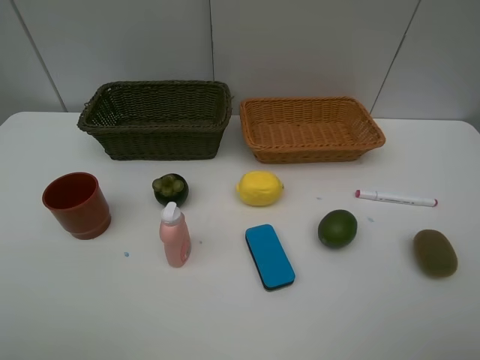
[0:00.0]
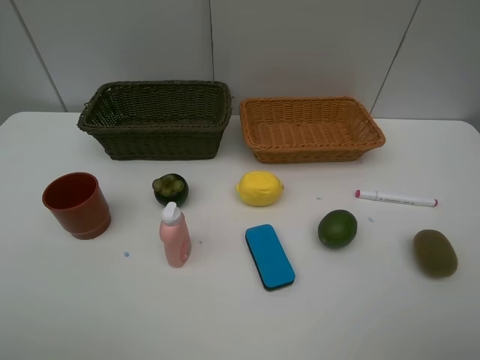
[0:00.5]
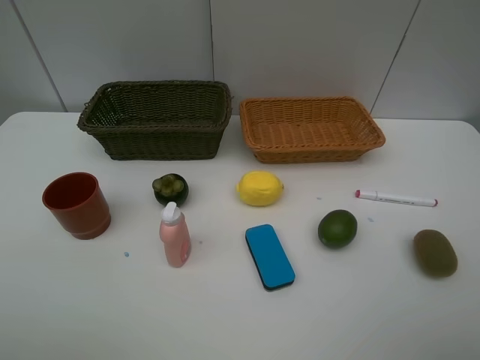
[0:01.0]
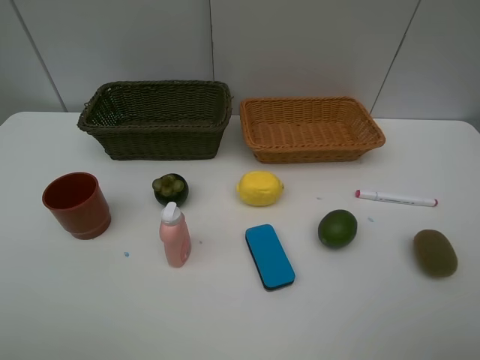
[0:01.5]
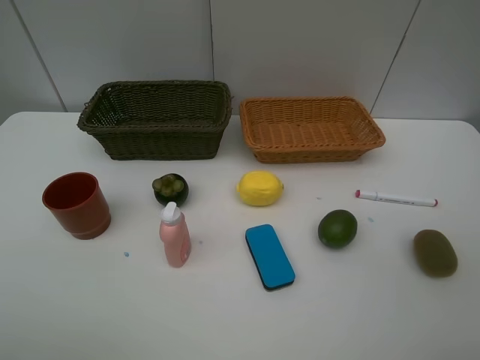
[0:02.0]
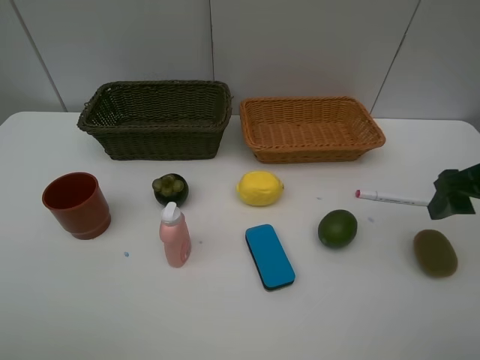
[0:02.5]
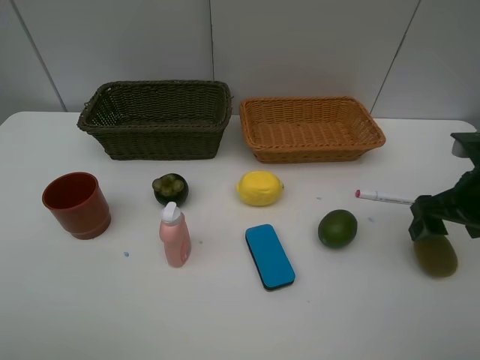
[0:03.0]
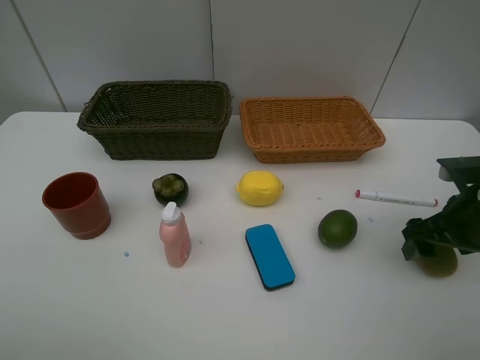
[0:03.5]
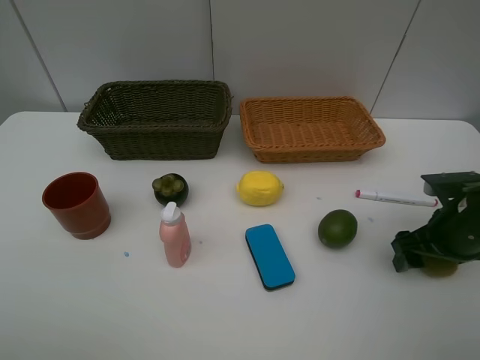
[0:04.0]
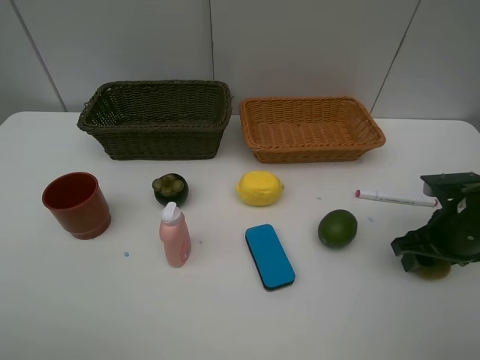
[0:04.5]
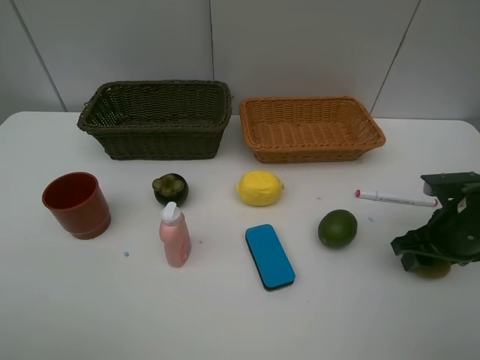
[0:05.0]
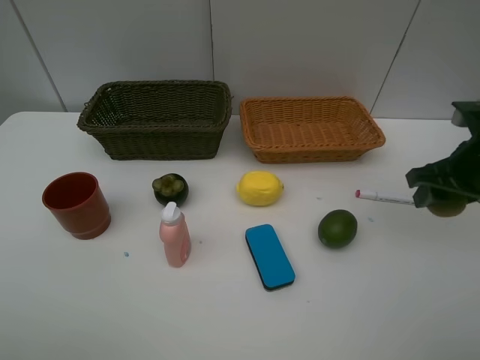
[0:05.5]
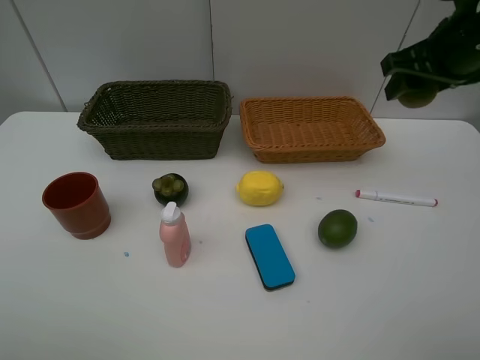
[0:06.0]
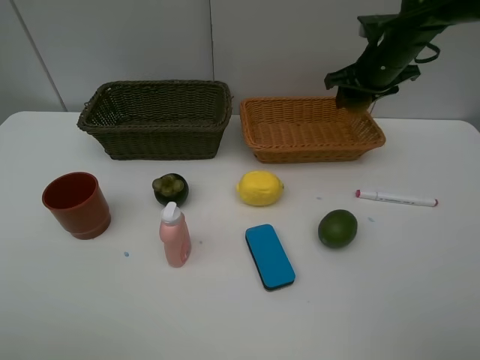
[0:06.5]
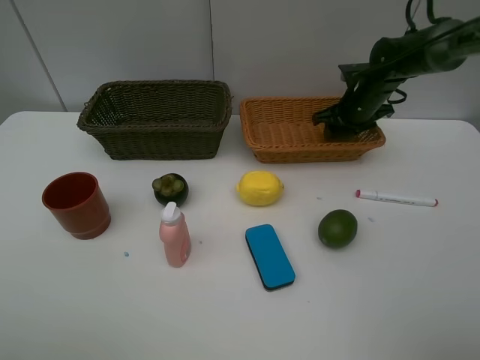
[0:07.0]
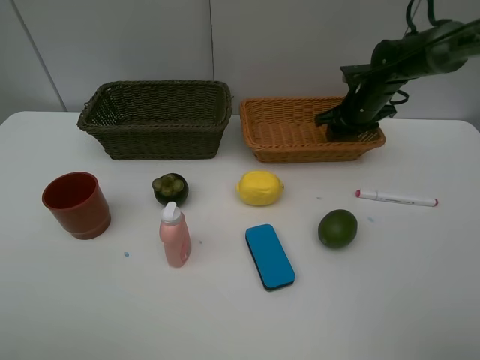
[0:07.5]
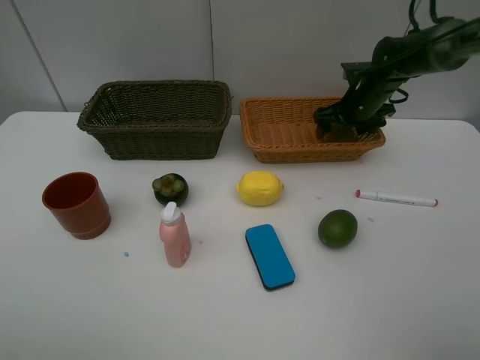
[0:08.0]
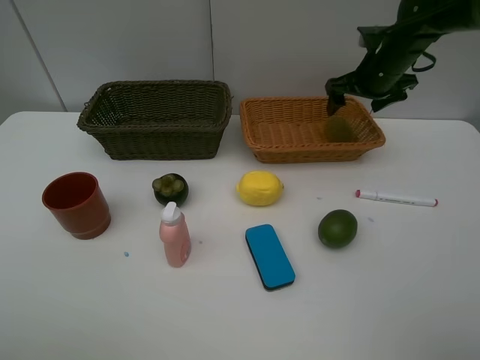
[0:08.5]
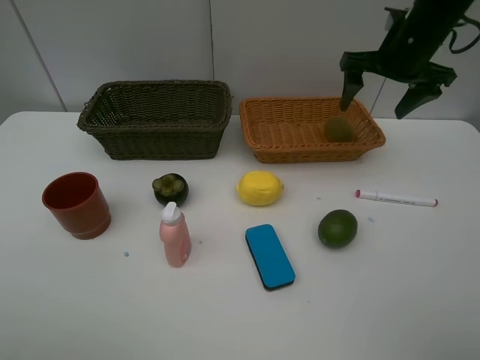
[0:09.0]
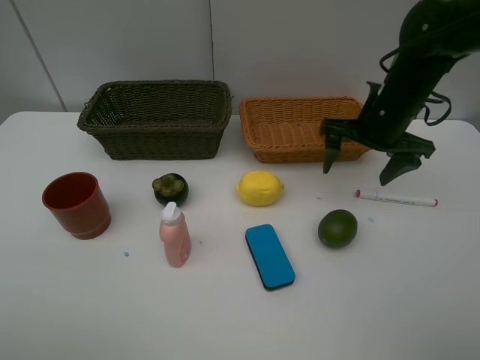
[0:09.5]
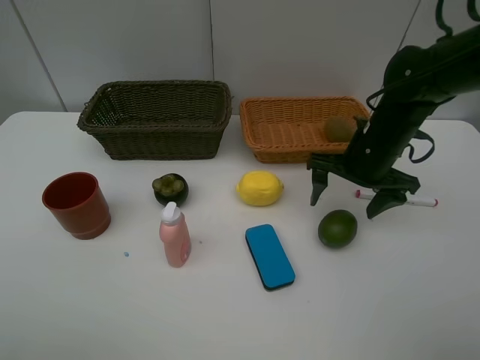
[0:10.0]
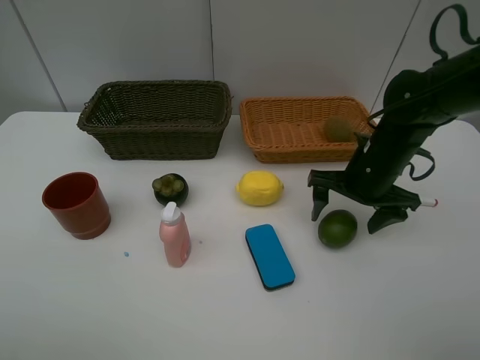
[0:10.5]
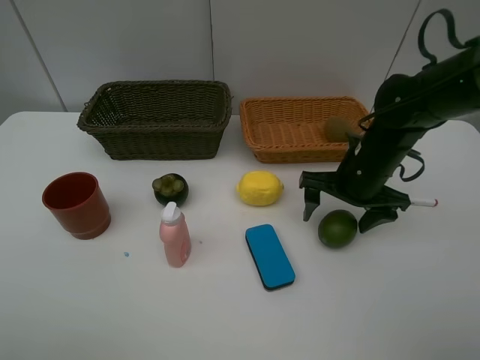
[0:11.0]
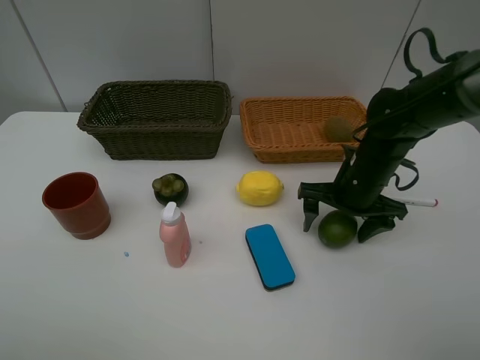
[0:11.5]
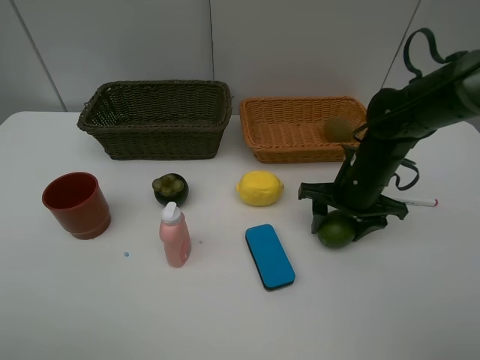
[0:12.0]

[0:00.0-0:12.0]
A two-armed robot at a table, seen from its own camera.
Task of the whole recording: Place multiple objects separately in different baskets.
Step, 0:00.0 to 0:05.0: Pick up kiwi with right gripper.
Step, 0:05.5 to 0:08.0: Place the kiwi in the light basket with right gripper.
0:02.0 to 0:04.0: The right gripper shifts roughly 20 cm downward and forward.
0:04.0 to 0:06.0: The right gripper heads upward and forward, covering roughly 20 cm, and closes up.
0:06.0 to 0:08.0: The right gripper moves downward and forward, some 20 cm, and opens its fingers.
0:08.0 to 0:10.0: The right gripper moves backward, about 15 cm.
0:10.0 to 0:12.0: The grippers move only a little.

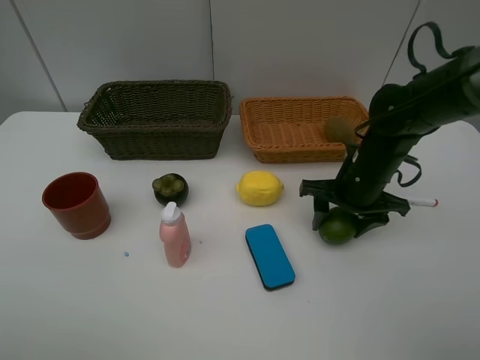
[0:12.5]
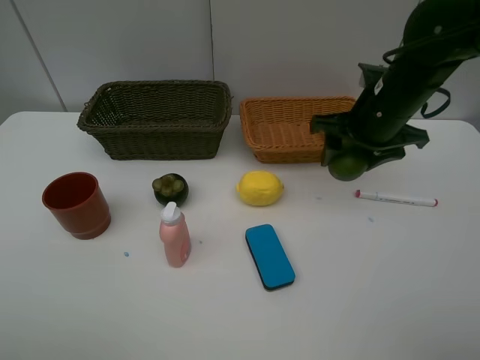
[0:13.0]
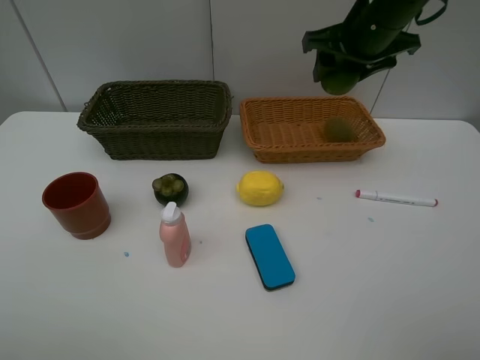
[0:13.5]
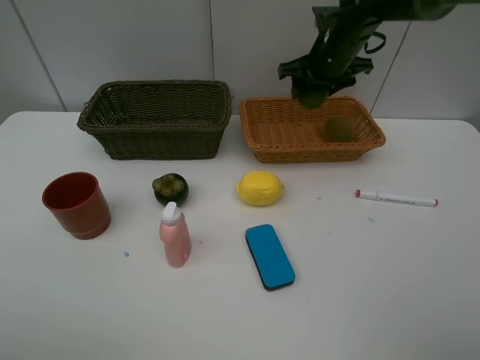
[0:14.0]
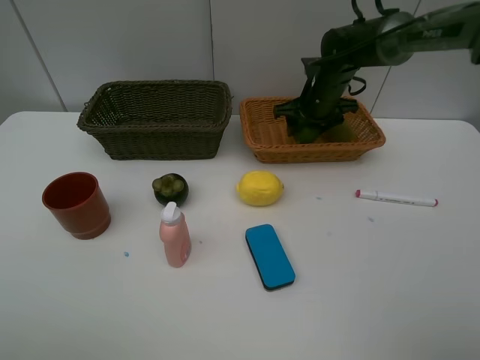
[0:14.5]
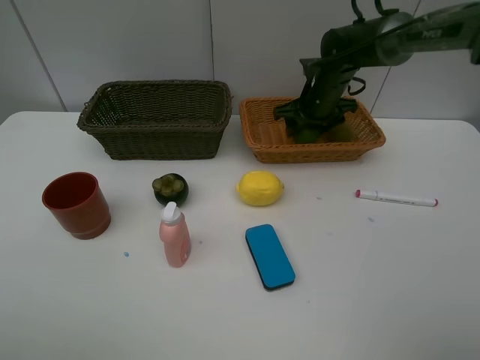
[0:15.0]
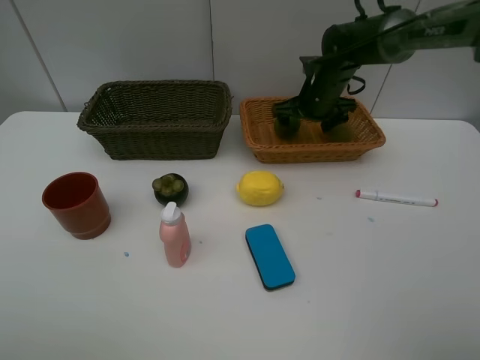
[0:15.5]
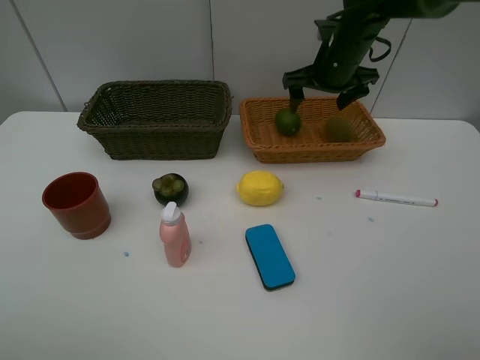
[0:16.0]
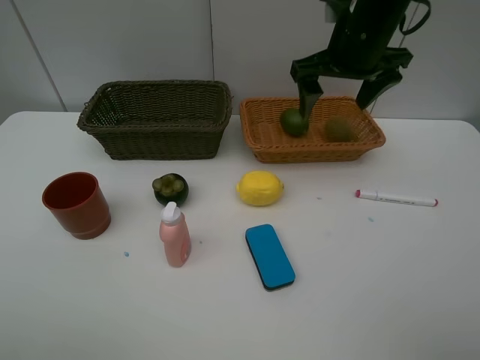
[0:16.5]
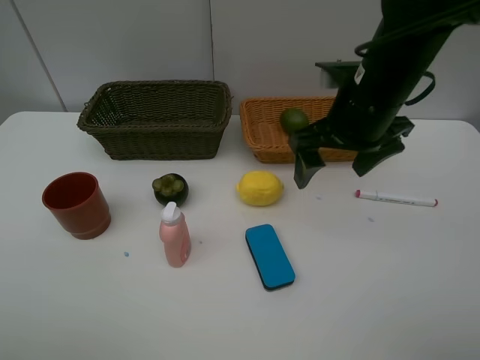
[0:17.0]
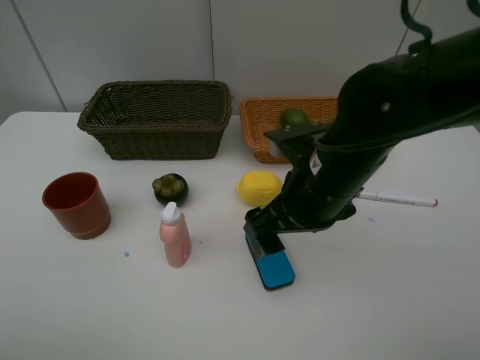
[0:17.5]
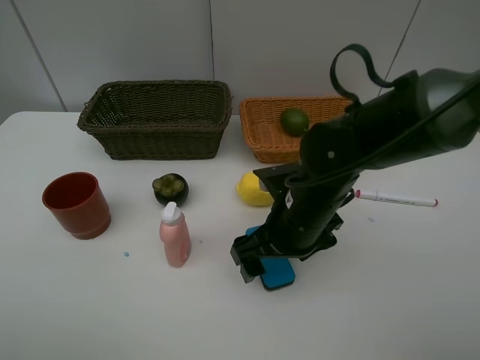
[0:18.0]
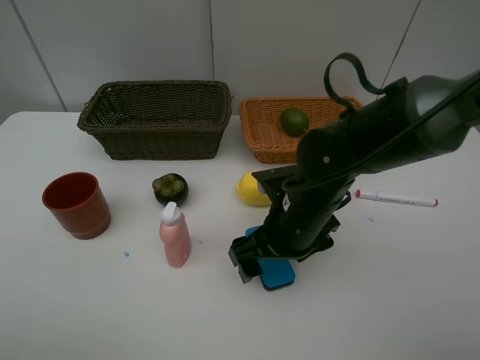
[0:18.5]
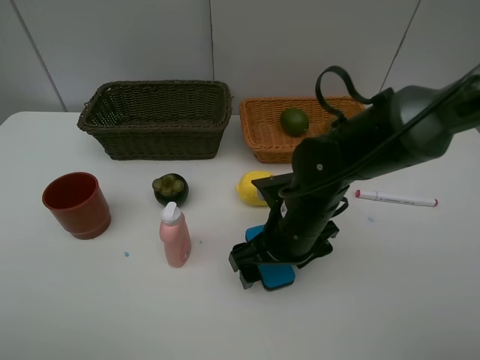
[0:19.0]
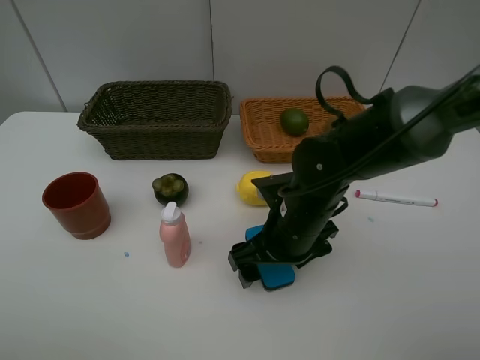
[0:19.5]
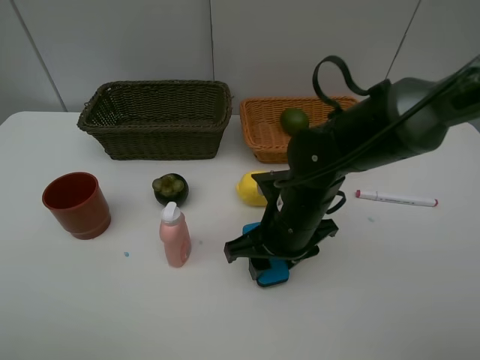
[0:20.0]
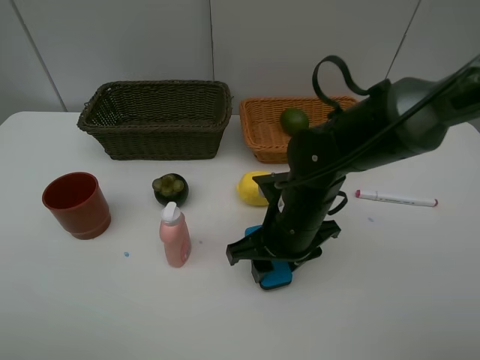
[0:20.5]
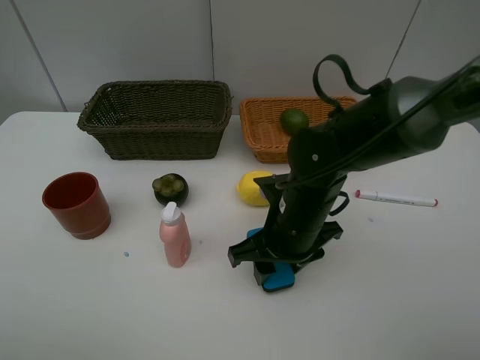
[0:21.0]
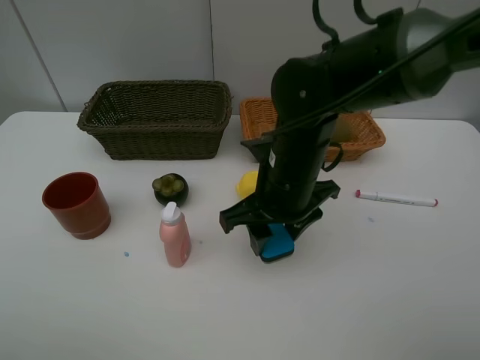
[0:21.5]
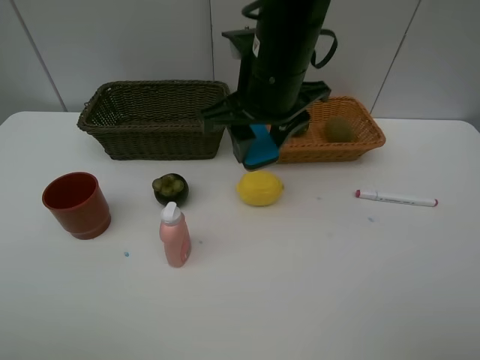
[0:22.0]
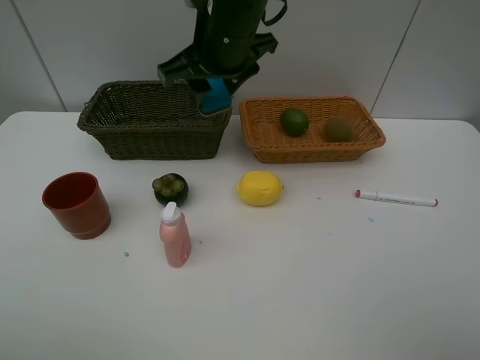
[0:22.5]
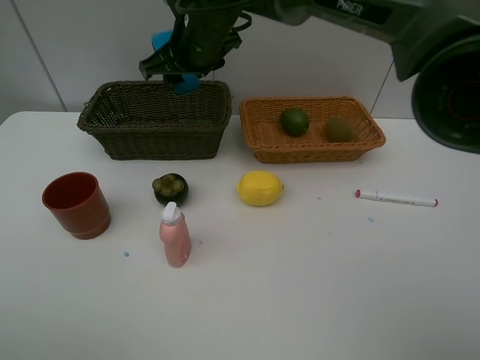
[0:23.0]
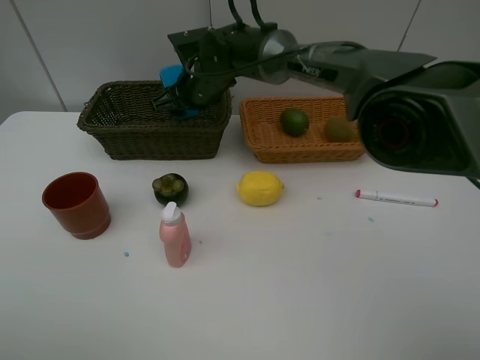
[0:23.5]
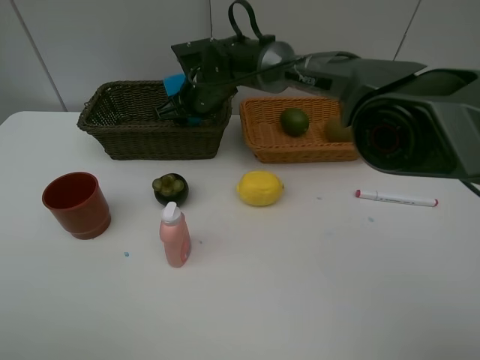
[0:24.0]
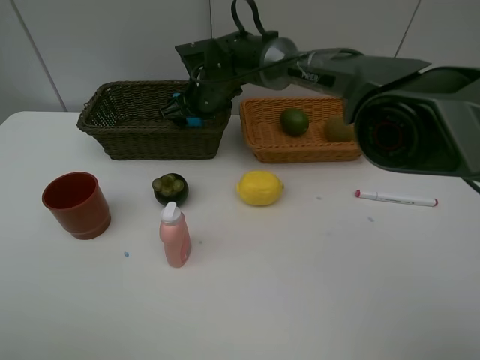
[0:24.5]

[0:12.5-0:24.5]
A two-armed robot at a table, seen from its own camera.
Task of the whole recording: Place multiple objects separately in different baskets.
Step, 0:13.0 to 0:16.0: Place the lime in the light basket with right gripper.
Step, 0:16.5 to 0:21.0: Pick up blackboard eraser with right gripper.
0:12.5 to 0:14.5: The right gripper is displaced forward by roughly 15 cm.
0:14.5 to 0:16.5: The right gripper heads upward and backward, covering approximately 20 cm.
0:16.5 to 0:18.5: The right gripper heads downward, backward and to the left, covering approximately 20 cm.
0:18.5 to 0:20.5: The right gripper closes up.
0:20.5 to 0:22.5: The right gripper travels upward, forward and to the left by some 25 cm.
0:22.5 to 0:24.5: The right gripper moves downward and forward, some 15 cm, and opens up.

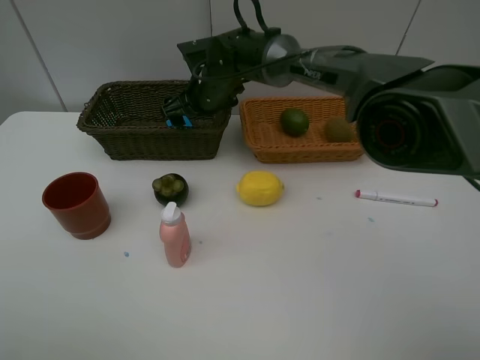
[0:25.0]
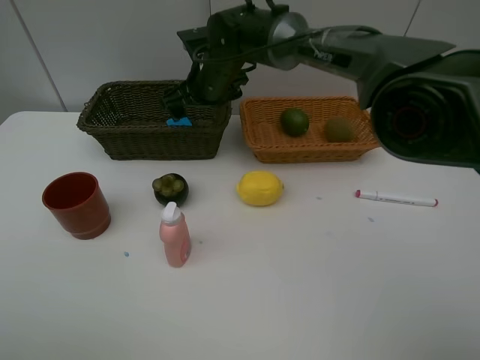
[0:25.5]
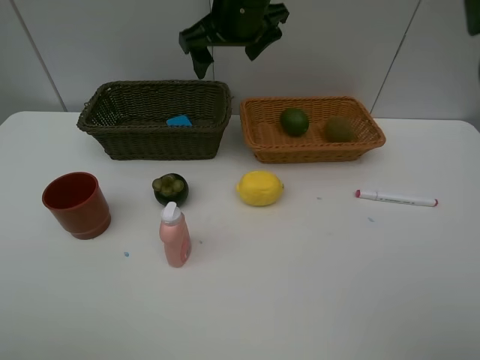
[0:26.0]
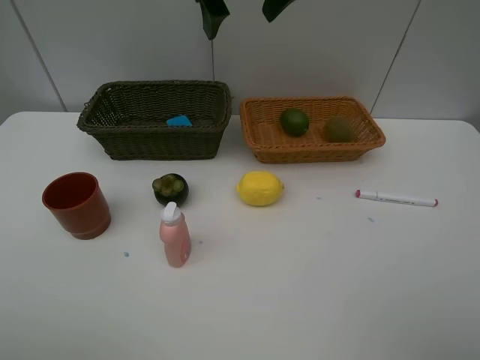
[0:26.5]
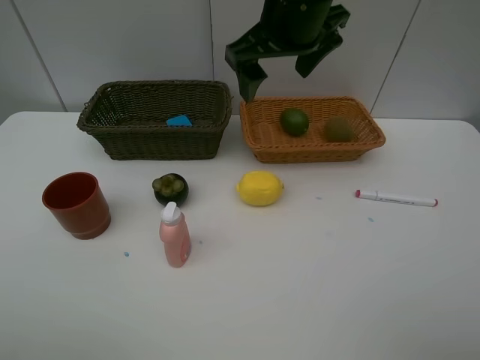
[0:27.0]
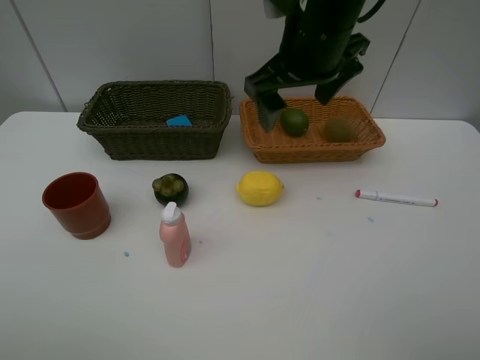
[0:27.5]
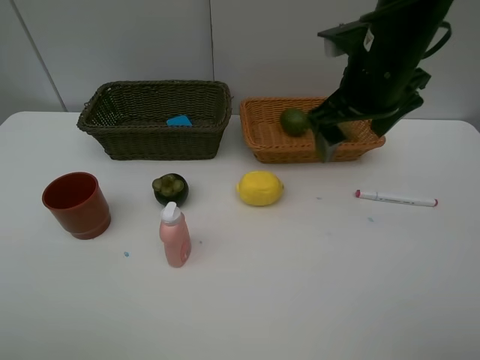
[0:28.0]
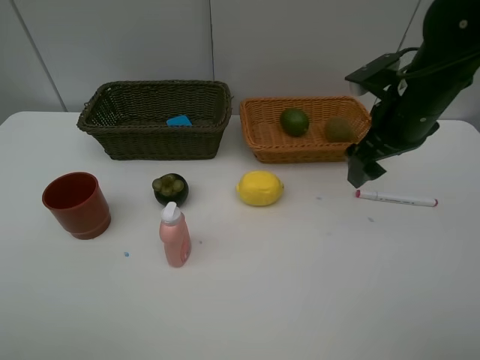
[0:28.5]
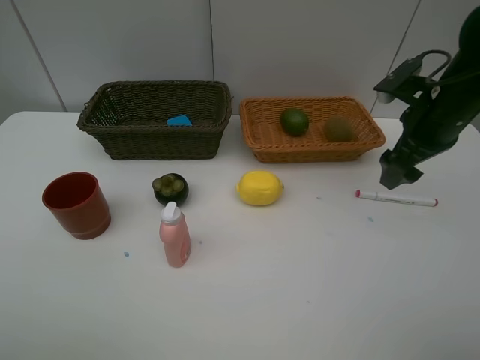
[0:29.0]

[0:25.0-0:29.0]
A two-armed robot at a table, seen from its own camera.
Task of the whole recording: Place multiple objects separately in different baskets.
0:25.0 to 0:27.0: The right gripper goes some 25 cm upward, backward and to the right.
0:27.0 to 0:29.0: The right gripper travels to the right and downward by approximately 20 cm.
